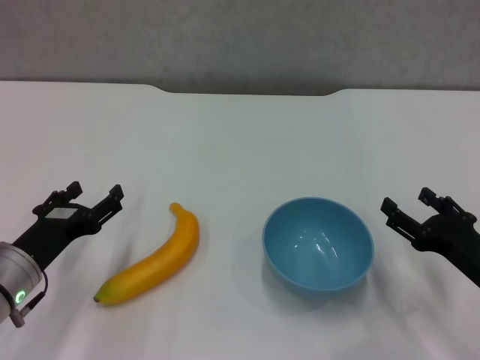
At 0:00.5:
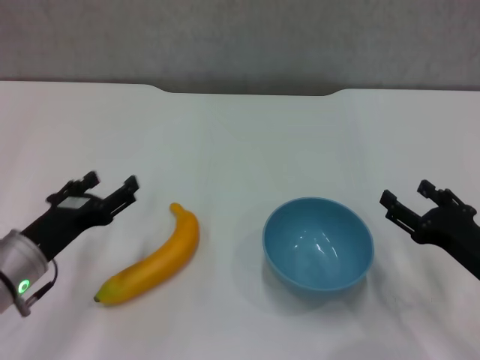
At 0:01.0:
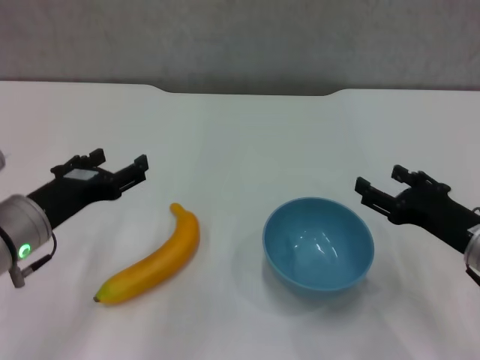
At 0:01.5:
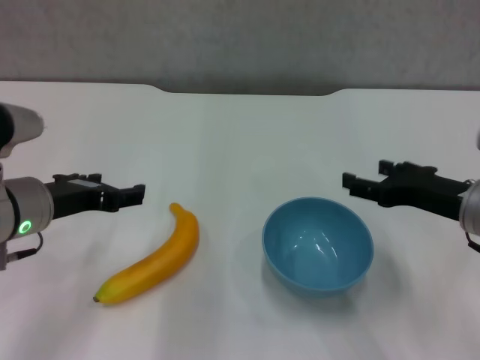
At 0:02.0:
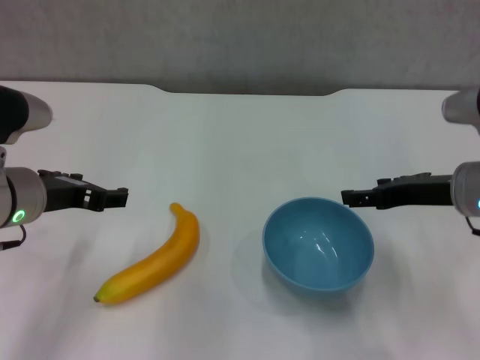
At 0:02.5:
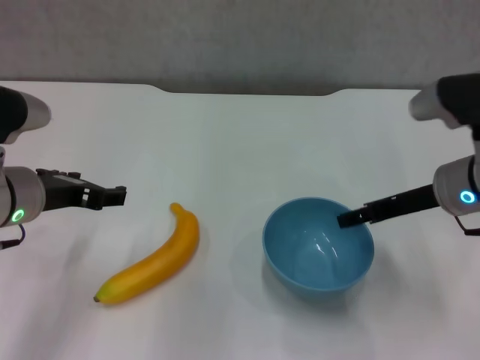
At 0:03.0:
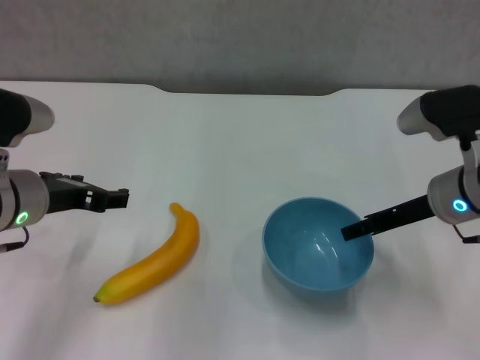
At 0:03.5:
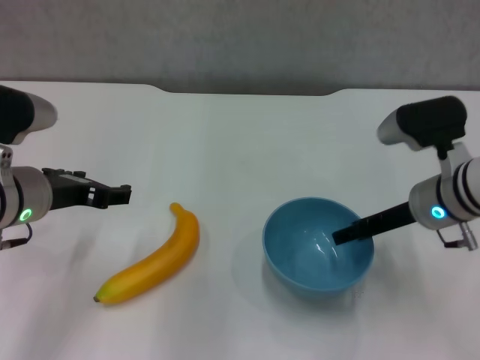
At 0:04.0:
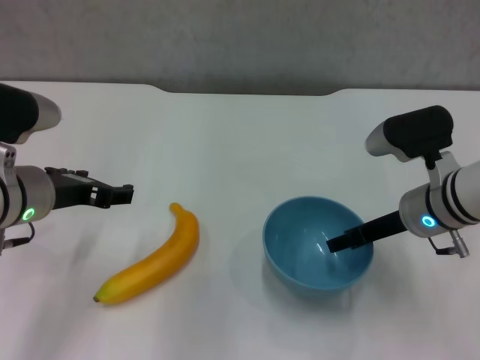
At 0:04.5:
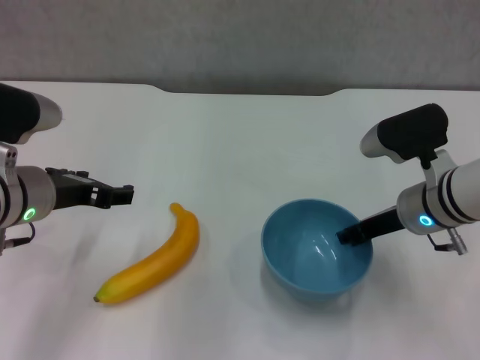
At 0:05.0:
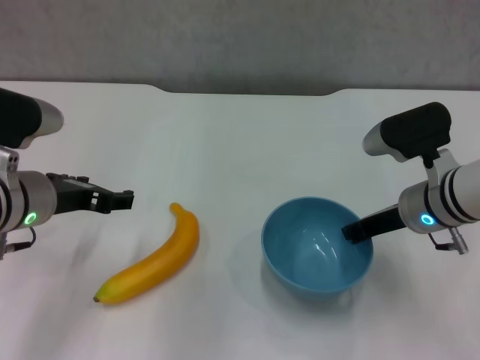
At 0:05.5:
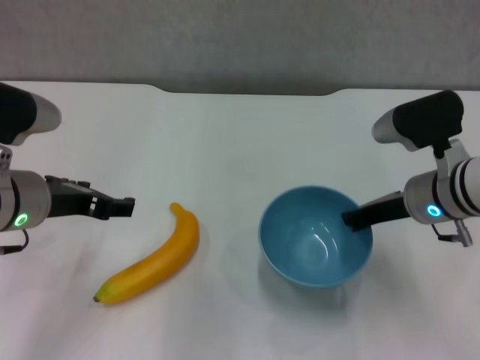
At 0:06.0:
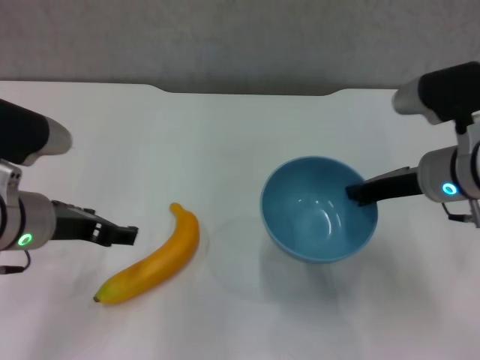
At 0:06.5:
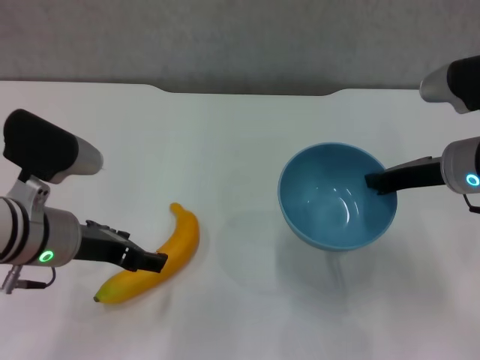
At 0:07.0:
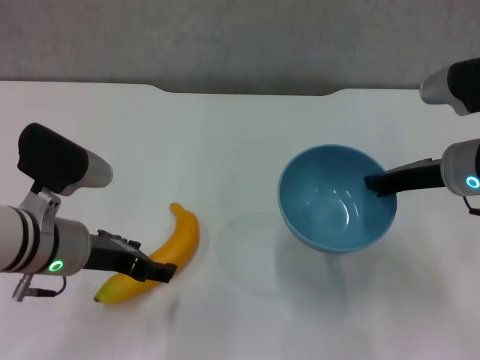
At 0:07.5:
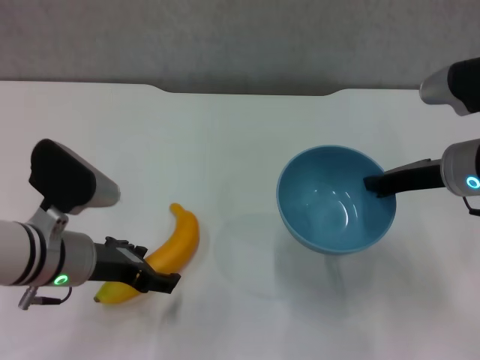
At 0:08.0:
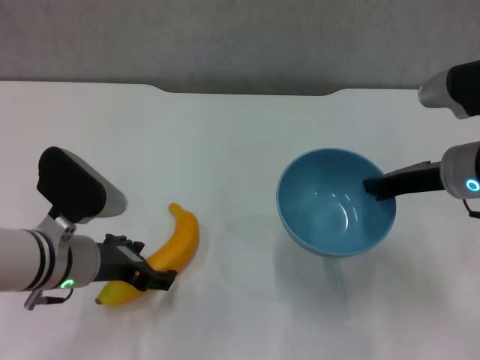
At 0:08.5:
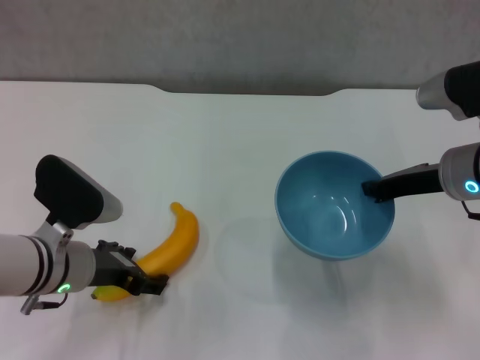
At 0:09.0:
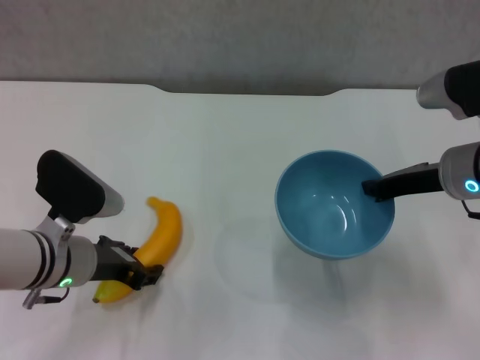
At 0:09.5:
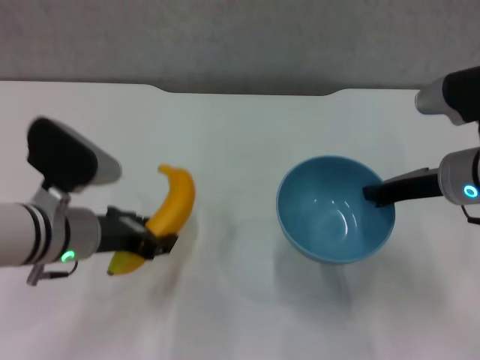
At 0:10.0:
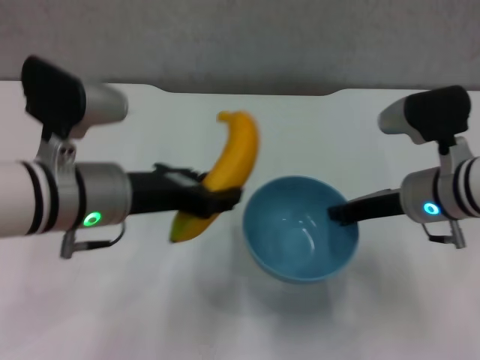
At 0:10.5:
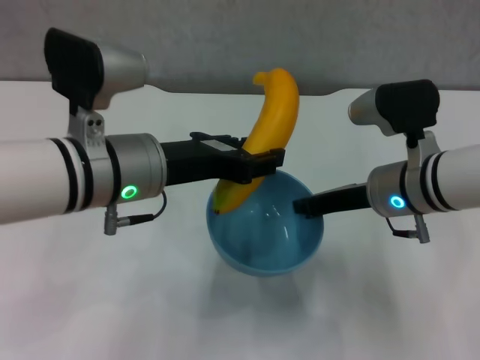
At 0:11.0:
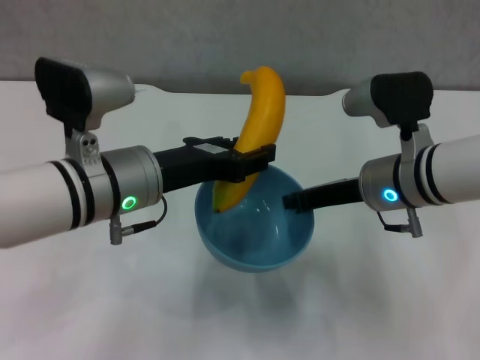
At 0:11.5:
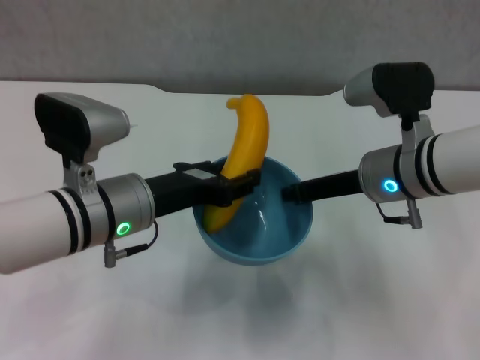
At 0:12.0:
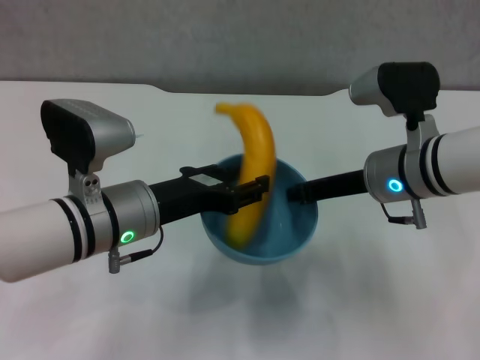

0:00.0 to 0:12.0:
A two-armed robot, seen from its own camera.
Step, 0:00.0 to 0:04.5: Grasp the blue bowl with right gripper.
Step, 0:05.0 to 0:06.0: Lift the blue bowl with right gripper.
Step, 0:06.5 to 0:08.5: Grasp the banana with left gripper.
0:00.0 to 0:02.0: The left gripper heads upward, covering about 10 cm, while the right gripper is displaced upward and forward by some 15 cm.
0:02.0 to 0:04.0: The right gripper moves approximately 5 cm.
0:04.0 to 0:06.0: The right gripper closes.
0:06.0 to 0:08.0: The left gripper heads downward, covering some 5 cm.
0:08.0 to 0:10.0: The left gripper moves upward, approximately 10 cm, and closes.
0:10.0 to 0:12.0: The left gripper moves downward, approximately 5 cm.

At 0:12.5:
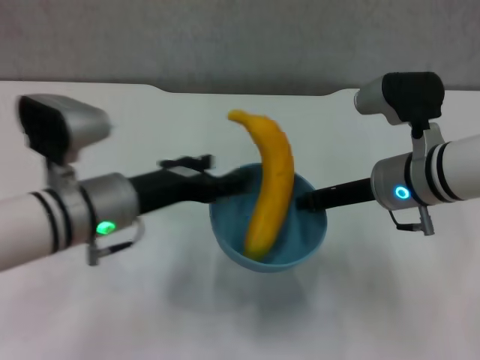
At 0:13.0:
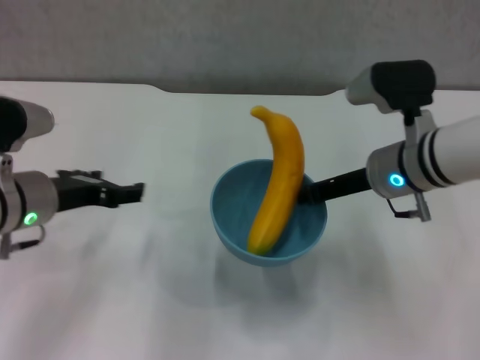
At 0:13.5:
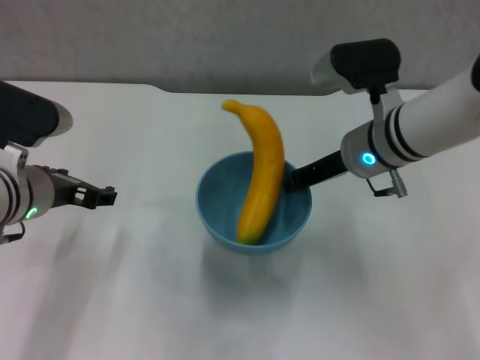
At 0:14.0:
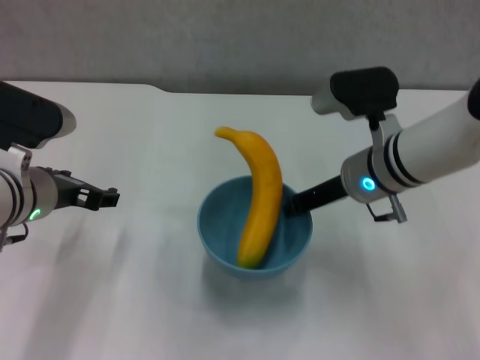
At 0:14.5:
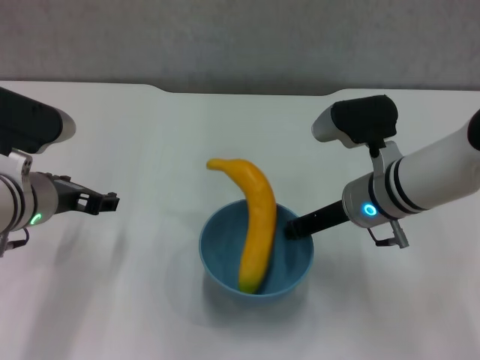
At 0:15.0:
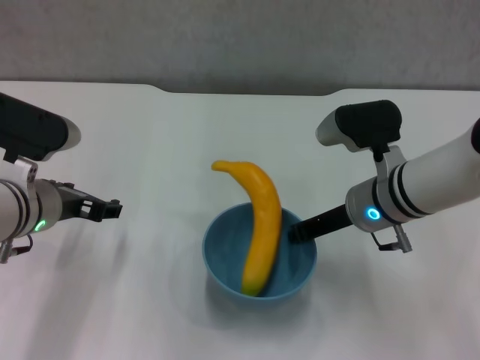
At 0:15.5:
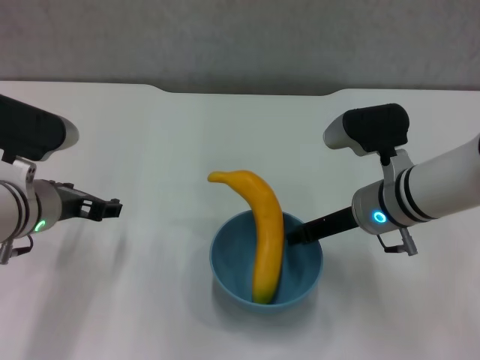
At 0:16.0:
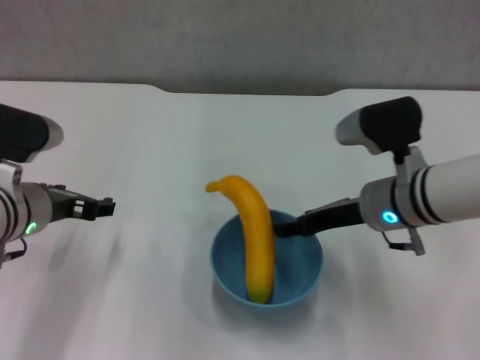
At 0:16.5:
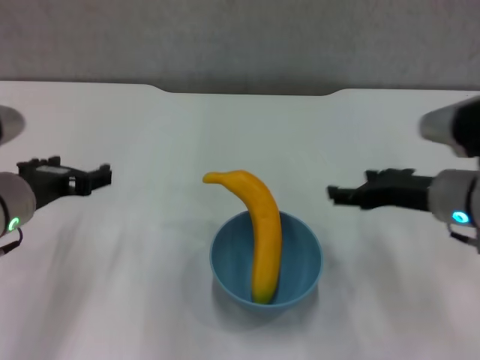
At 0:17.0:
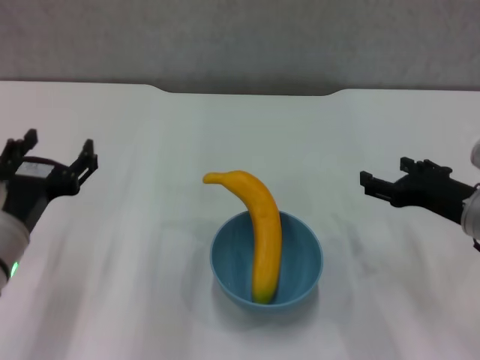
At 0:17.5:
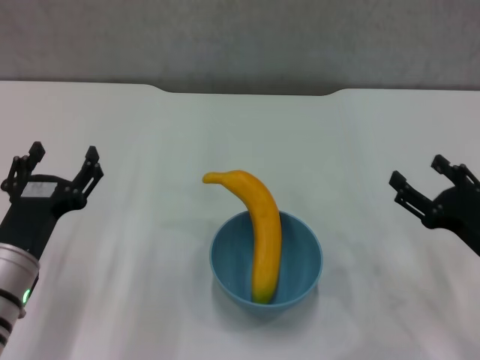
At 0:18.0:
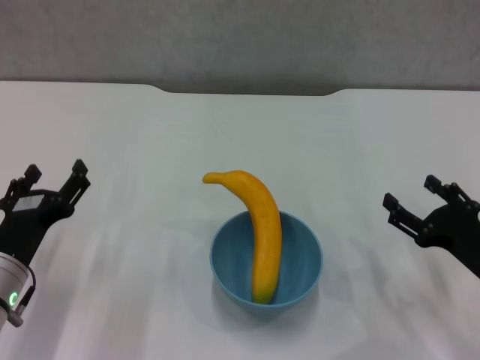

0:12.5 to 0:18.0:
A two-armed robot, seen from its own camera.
Step, 0:12.5 to 0:16.0: Place the bowl on the table with right gripper.
0:12.5 to 0:14.5: The left gripper shifts about 5 cm to the left.
0:14.5 to 0:16.0: The right gripper opens up.
0:16.0 to 0:18.0: The right gripper shifts roughly 20 cm to the right, backward and downward, while the left gripper moves downward and backward, roughly 10 cm.

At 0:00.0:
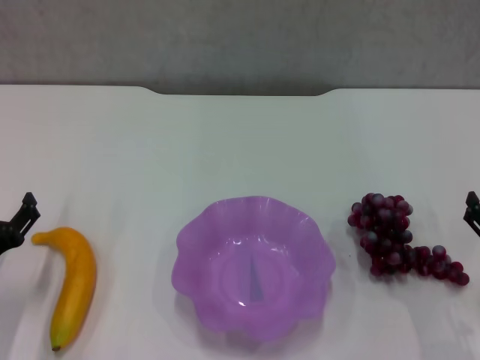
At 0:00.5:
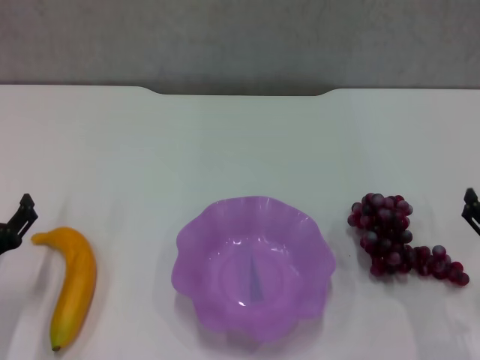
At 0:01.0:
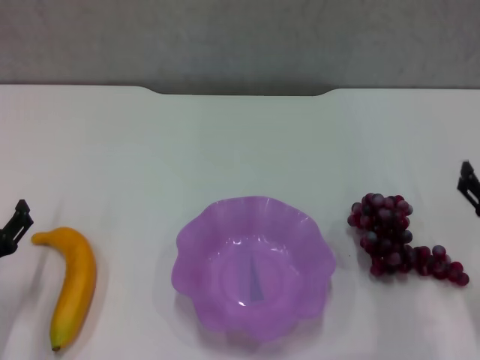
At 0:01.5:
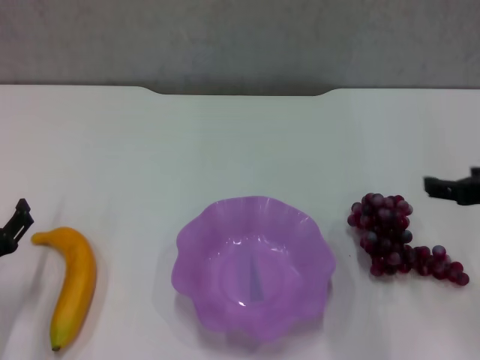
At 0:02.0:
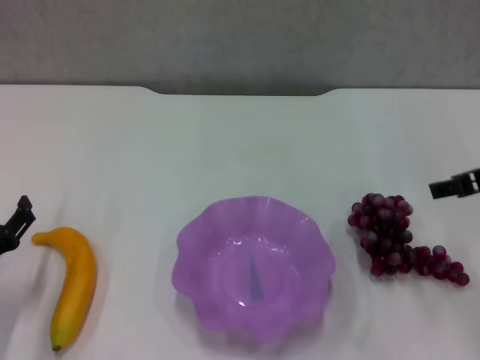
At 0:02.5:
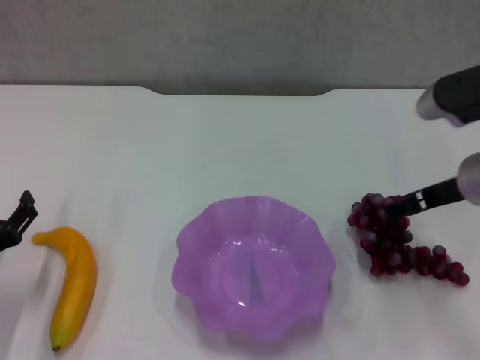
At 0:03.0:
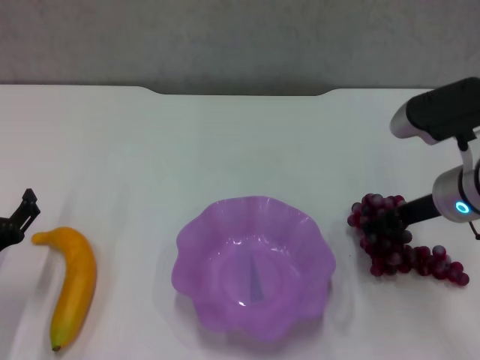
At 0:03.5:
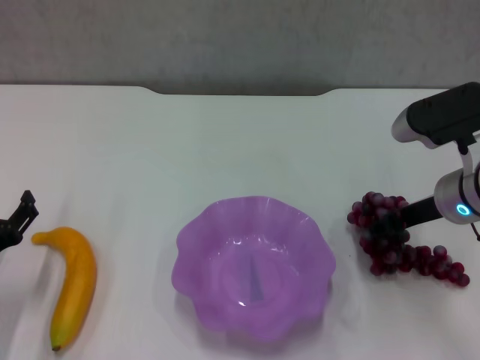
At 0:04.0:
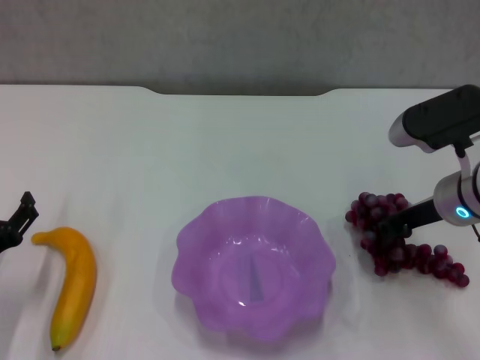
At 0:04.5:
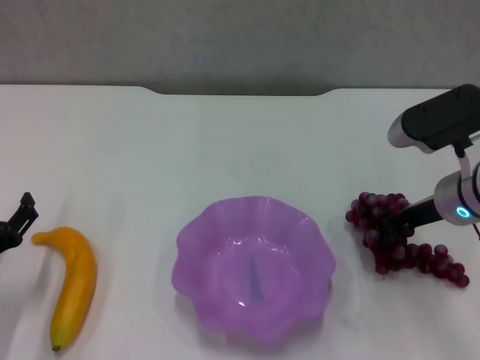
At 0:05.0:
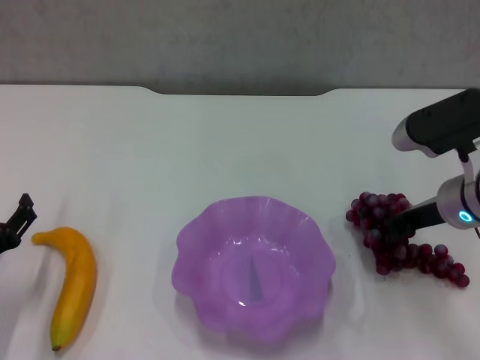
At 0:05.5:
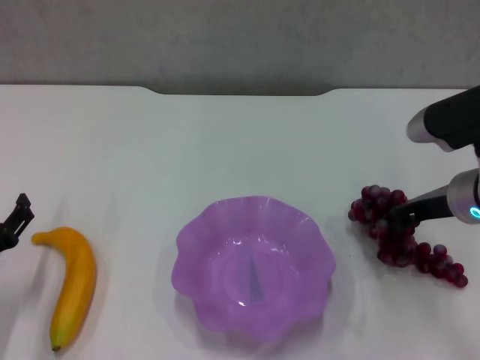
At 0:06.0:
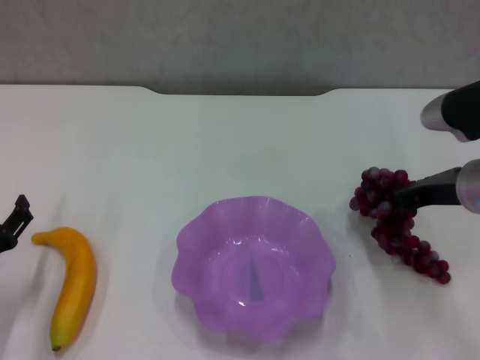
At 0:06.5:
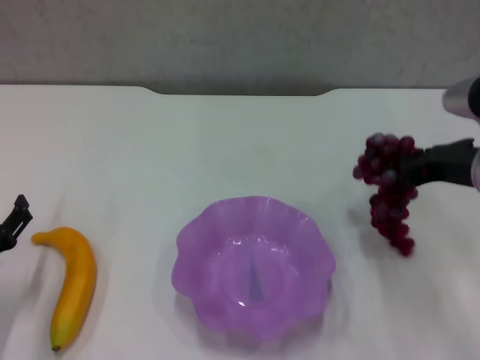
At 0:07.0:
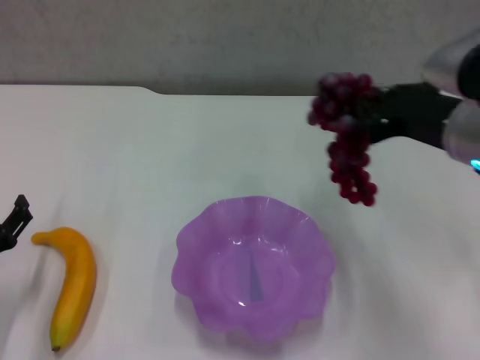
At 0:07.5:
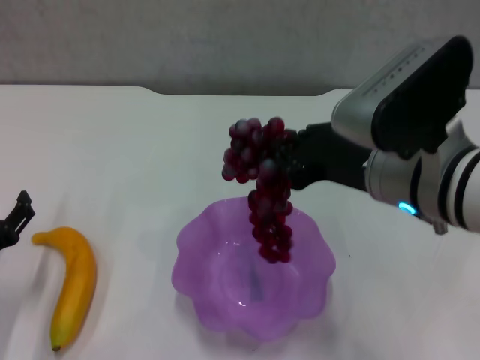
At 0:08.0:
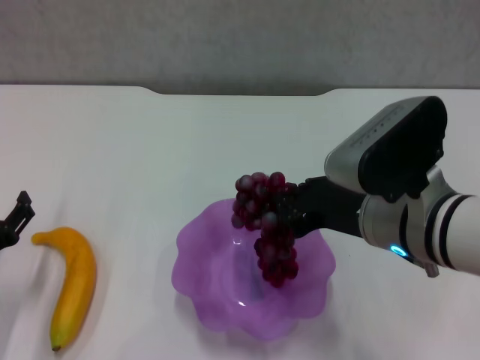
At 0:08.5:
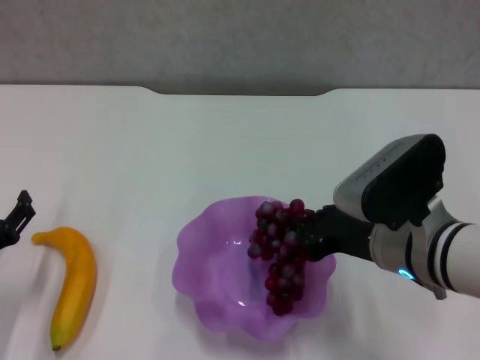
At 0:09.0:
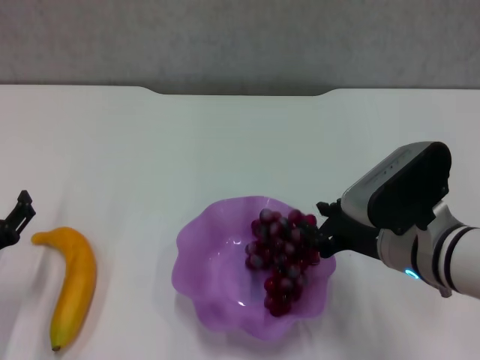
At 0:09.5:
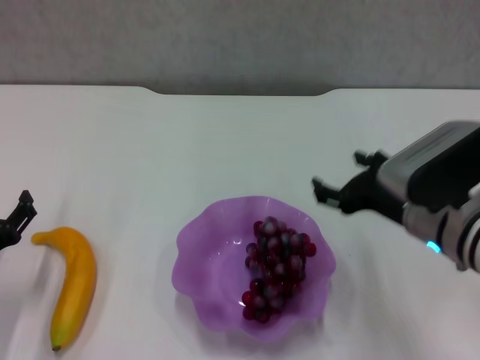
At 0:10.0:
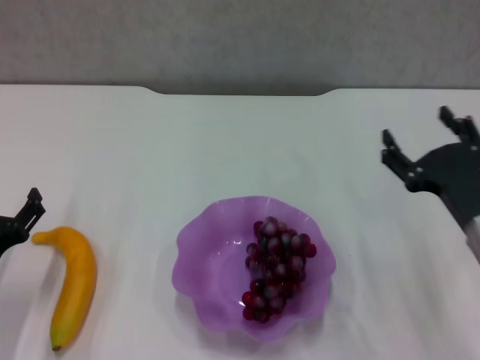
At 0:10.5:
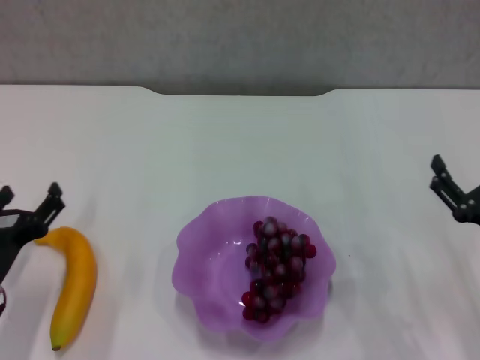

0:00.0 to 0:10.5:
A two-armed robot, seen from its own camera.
Step, 0:00.0 to 0:04.5: Grasp the grape with right gripper.
Step, 0:05.0 to 0:09.0: Place the grape in the purple plate with right gripper.
0:00.0 to 0:02.0: The right gripper goes roughly 20 cm upward and forward.
0:02.0 to 0:04.0: The right gripper travels downward by approximately 5 cm, and closes up.
0:04.0 to 0:06.5: The right gripper changes place by approximately 5 cm, and closes.
0:06.5 to 0:08.5: The right gripper heads to the left, covering roughly 10 cm.
0:08.5 to 0:10.5: The right gripper heads to the right and downward, covering about 15 cm, and opens up.
